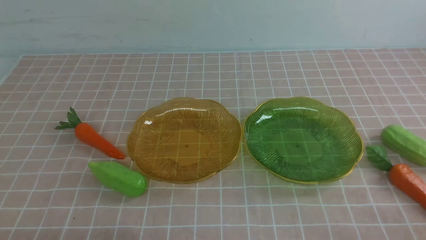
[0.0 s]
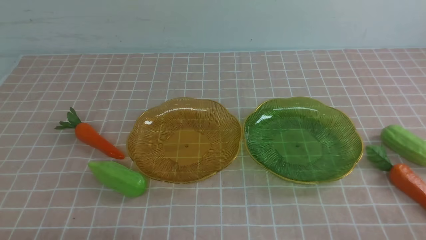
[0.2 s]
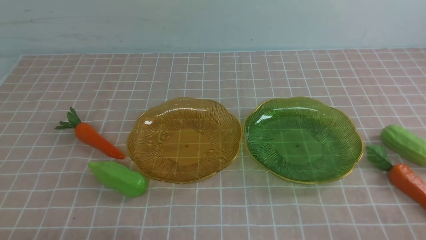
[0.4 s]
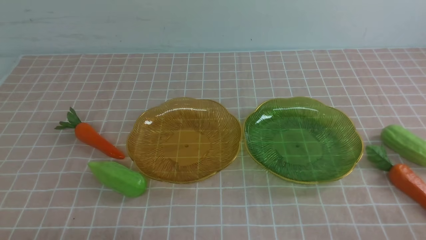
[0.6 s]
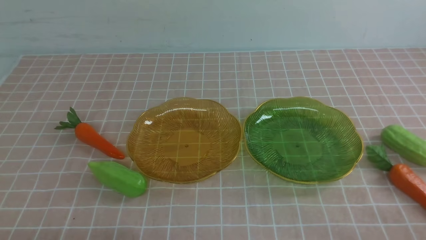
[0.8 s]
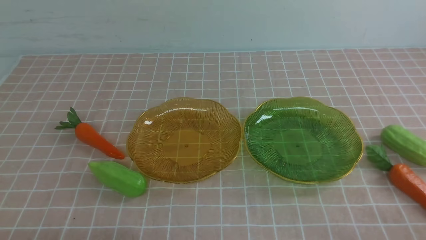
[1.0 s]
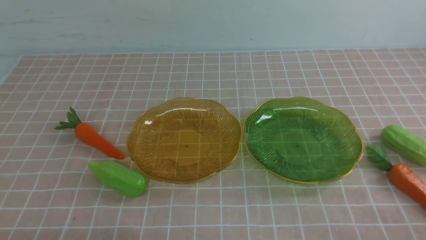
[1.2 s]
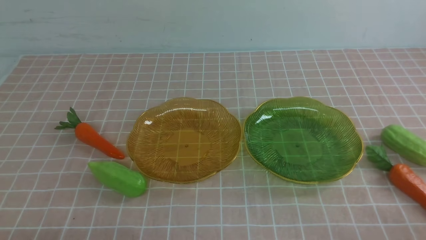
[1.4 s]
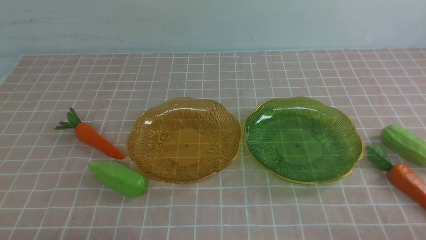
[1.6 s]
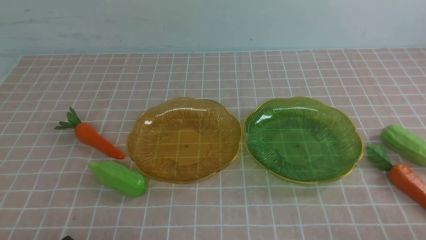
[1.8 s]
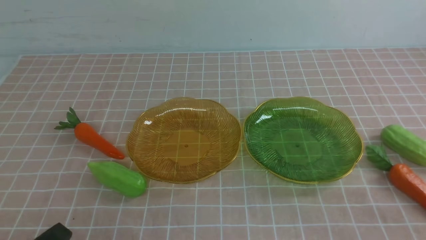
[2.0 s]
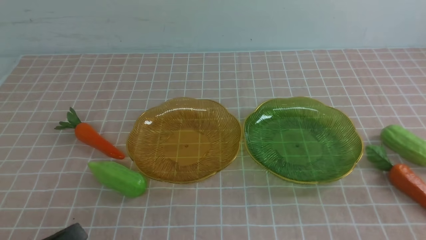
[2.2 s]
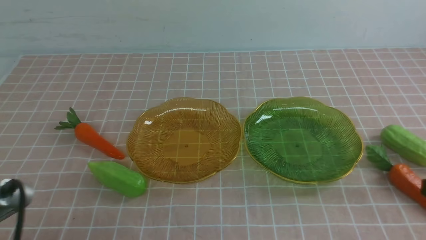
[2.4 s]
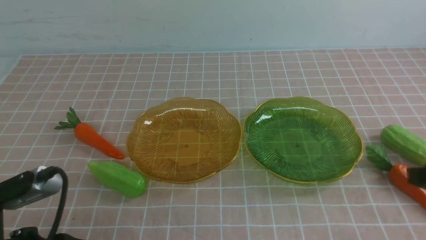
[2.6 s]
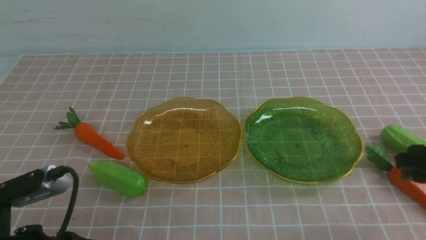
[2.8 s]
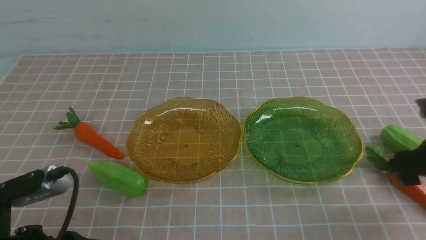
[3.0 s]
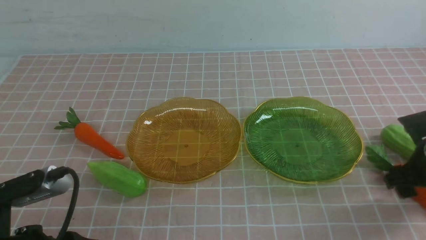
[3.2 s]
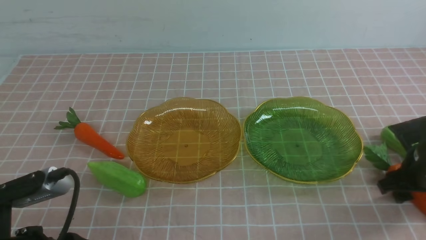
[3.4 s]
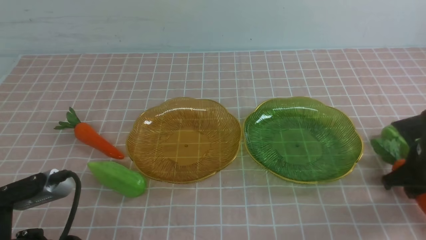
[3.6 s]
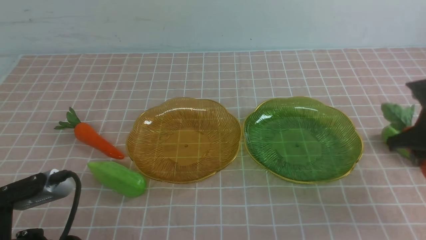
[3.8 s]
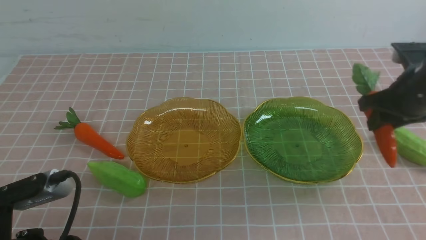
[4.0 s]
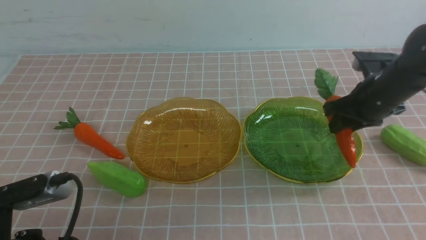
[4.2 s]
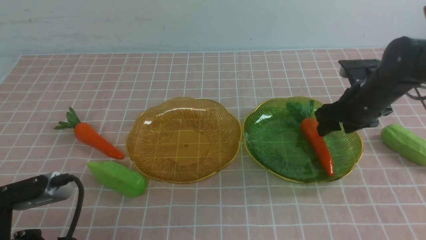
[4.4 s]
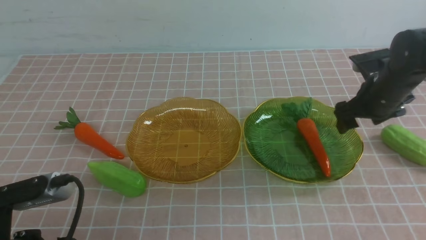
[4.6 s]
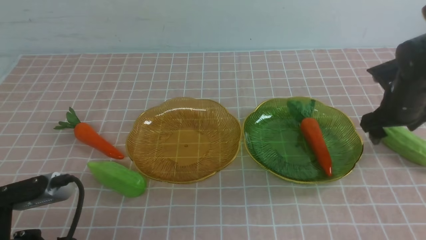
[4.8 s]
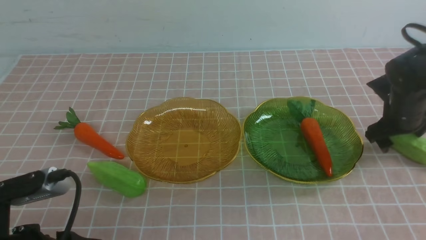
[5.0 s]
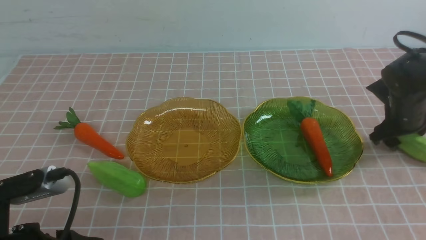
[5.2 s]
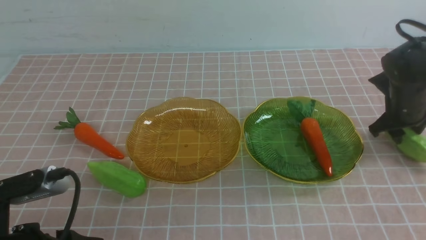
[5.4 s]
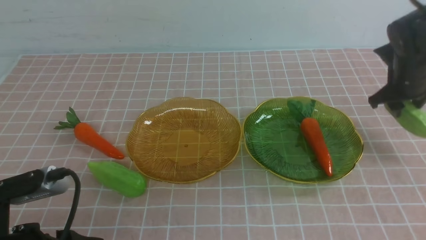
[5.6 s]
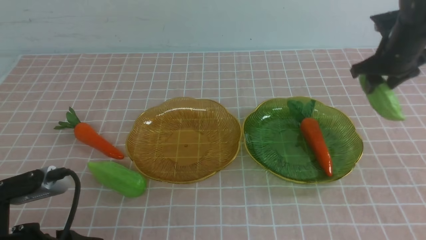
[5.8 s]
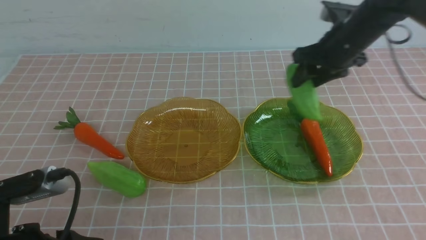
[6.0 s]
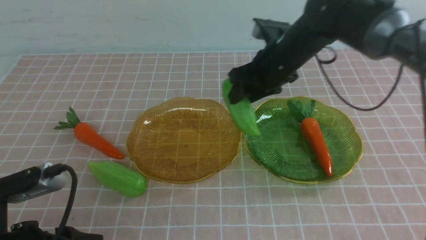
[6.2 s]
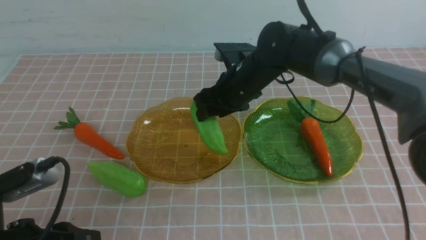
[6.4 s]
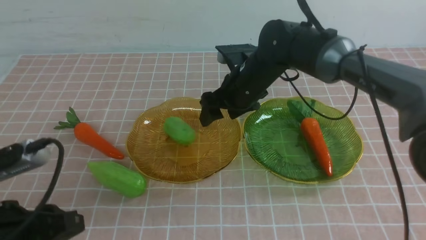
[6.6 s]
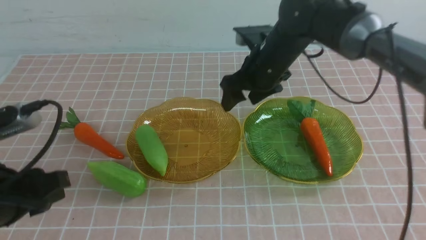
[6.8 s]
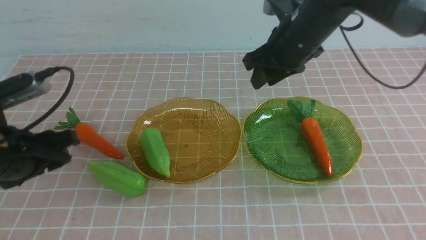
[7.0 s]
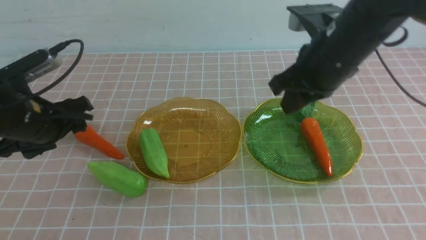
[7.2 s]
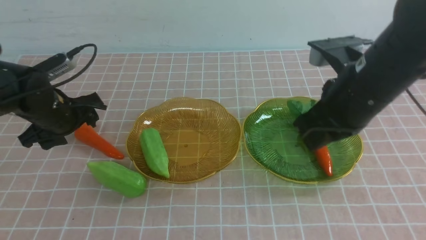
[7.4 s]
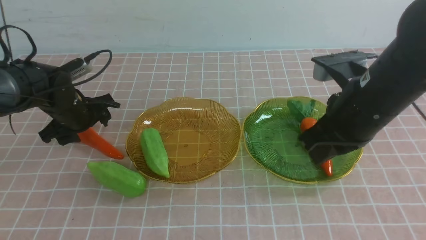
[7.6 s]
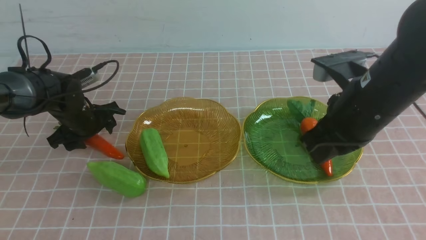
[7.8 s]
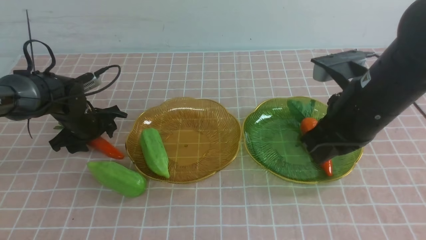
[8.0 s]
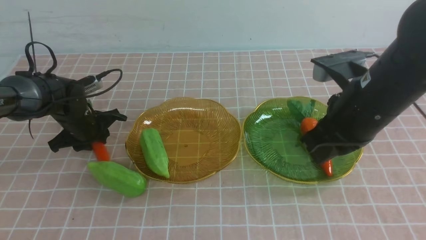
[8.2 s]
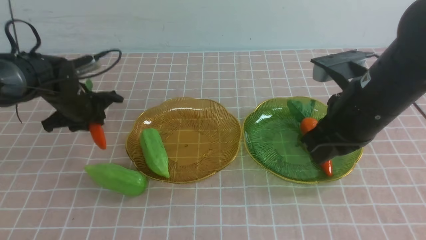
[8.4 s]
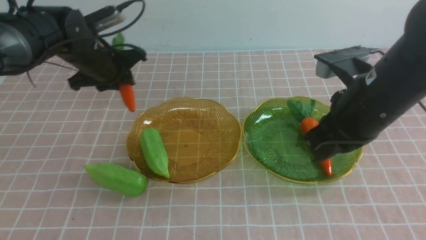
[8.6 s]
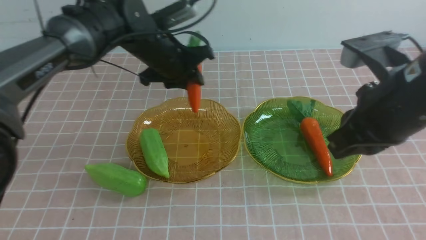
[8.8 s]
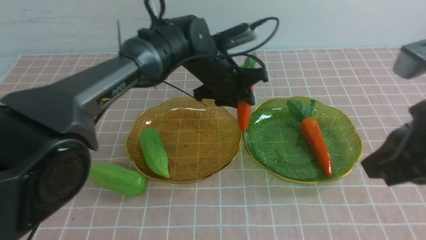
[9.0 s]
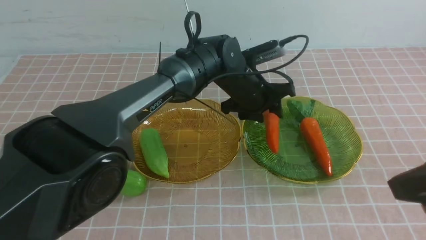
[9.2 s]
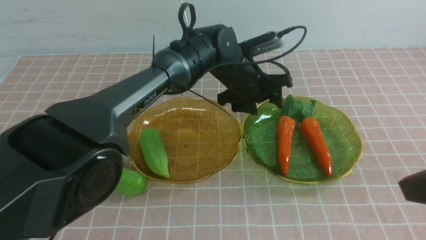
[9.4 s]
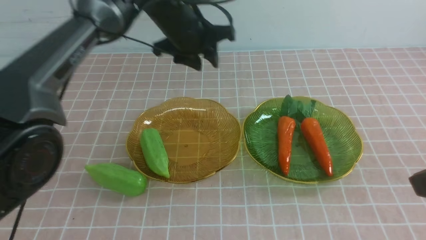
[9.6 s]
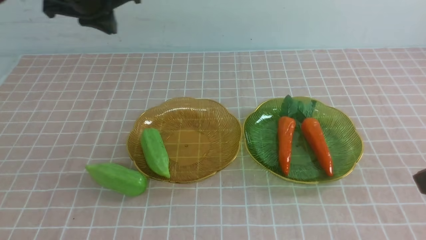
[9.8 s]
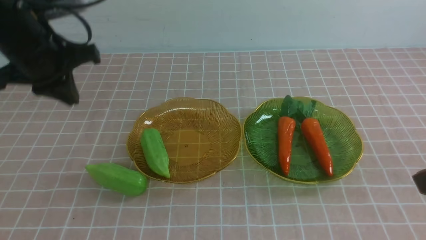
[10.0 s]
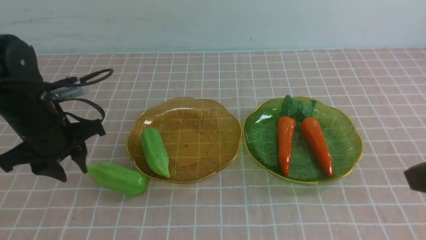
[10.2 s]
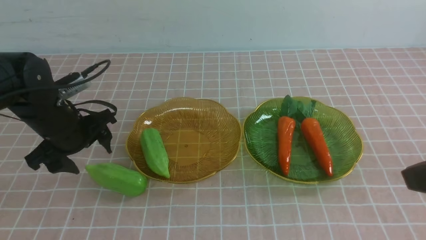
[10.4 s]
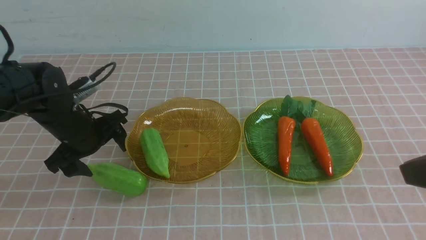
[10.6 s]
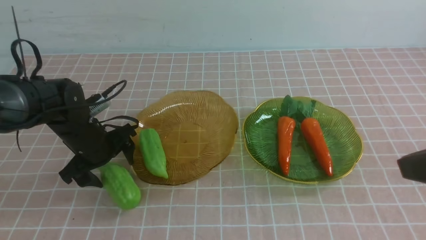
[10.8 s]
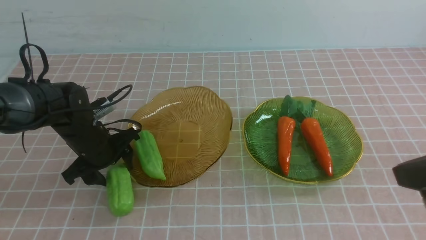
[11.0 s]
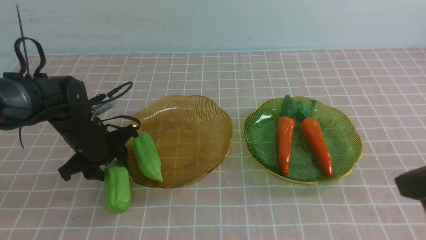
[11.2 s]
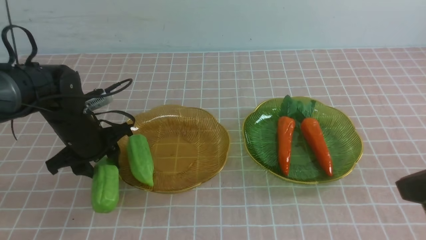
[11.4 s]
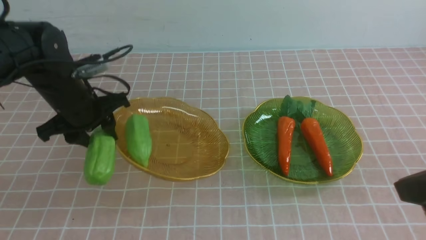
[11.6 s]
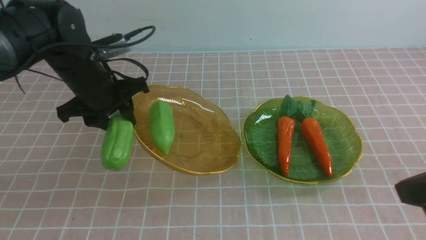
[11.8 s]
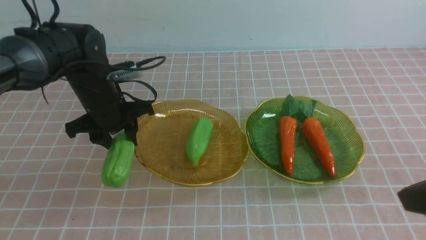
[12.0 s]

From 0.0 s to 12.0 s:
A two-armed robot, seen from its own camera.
Step, from 0.0 s to 4.4 s: use the right arm to grab a carrot and put it into the right plate.
Step, from 4.6 s to 6.6 s: Grab the chayote with your right arm and put it on the left plate.
Step, from 6.8 s to 9.2 s: use the left arm to grab a carrot and put it into the right plate.
From 1.6 s to 3.0 s: The left gripper moves upward and forward, approximately 10 cm, and opens. The right gripper shifts some 25 cm forward, and opens its fingers.
From 3.0 s to 4.4 s: The right gripper shifts about 10 cm forward, and closes, then reopens.
From 4.4 s to 6.0 s: The left gripper heads forward, covering roughly 5 cm. Meanwhile the right gripper heads to the left and upward, covering approximately 25 cm.
From 6.0 s to 7.6 s: The left gripper heads forward, covering approximately 25 cm, and opens and closes again. The right gripper moves backward and to the right, approximately 15 cm, and closes its fingers.
From 7.6 s to 9.0 s: The right gripper travels backward, to the right and upward by approximately 15 cm. Meanwhile the left gripper goes some 15 cm upward, and goes to the right and returns, roughly 25 cm each way.
From 9.0 s to 10.4 s: The left gripper moves downward, approximately 15 cm, and opens its fingers.
From 10.4 s to 12.0 s: The left gripper shifts by about 5 cm.

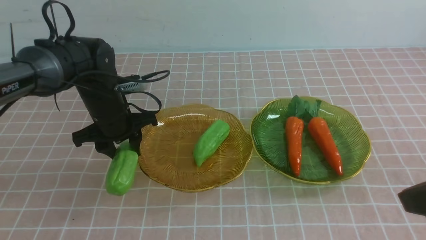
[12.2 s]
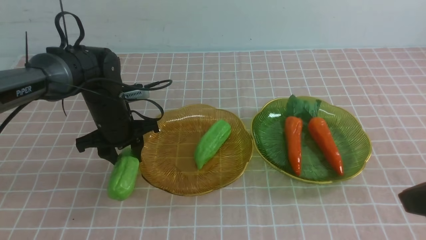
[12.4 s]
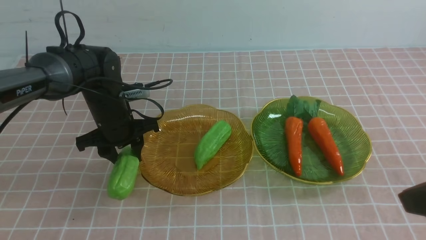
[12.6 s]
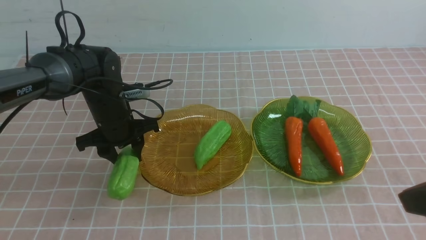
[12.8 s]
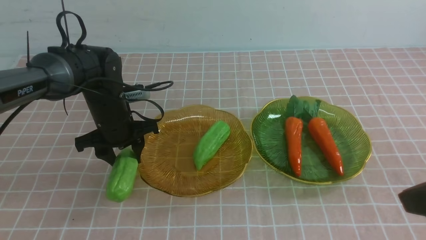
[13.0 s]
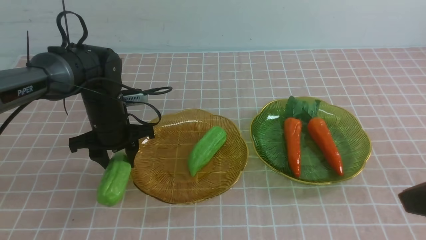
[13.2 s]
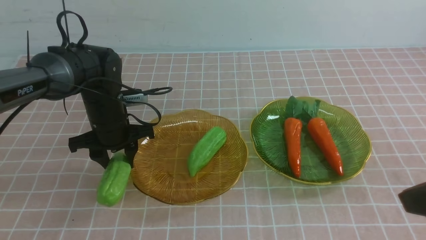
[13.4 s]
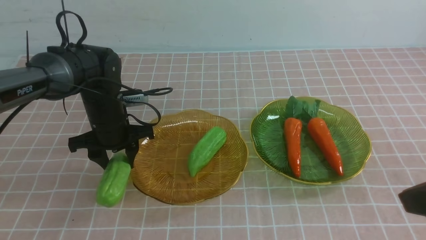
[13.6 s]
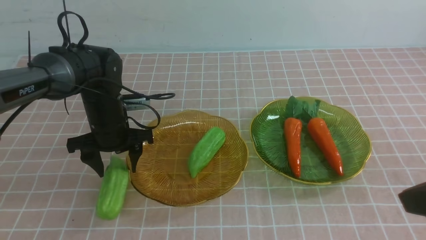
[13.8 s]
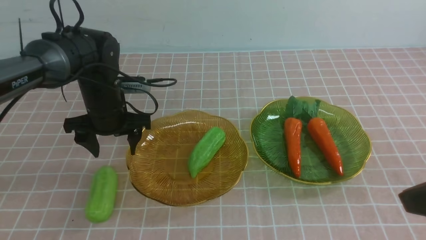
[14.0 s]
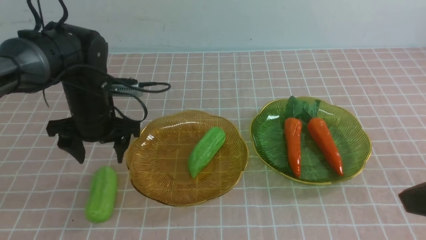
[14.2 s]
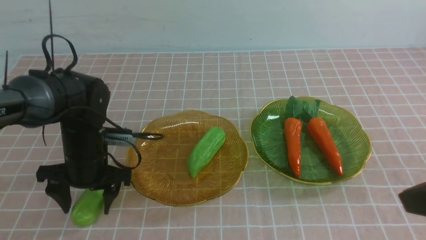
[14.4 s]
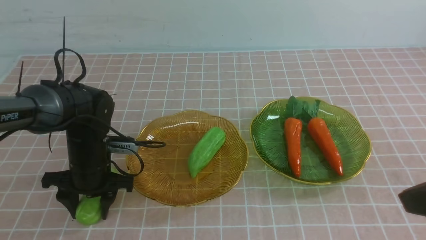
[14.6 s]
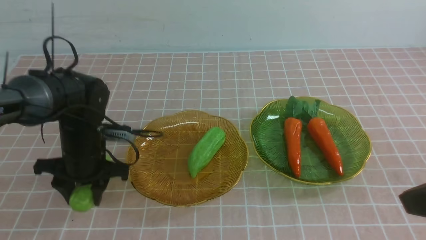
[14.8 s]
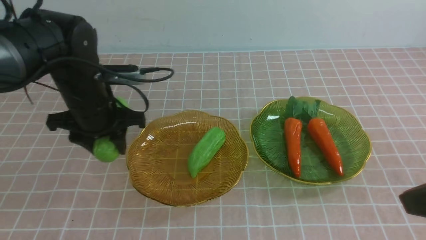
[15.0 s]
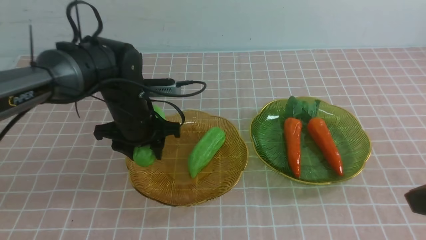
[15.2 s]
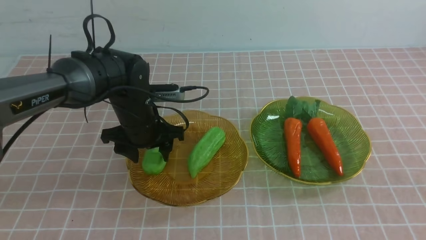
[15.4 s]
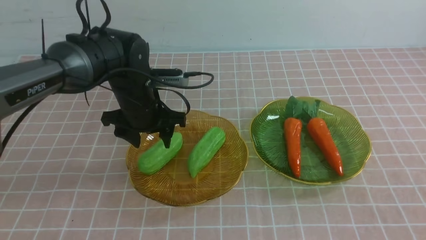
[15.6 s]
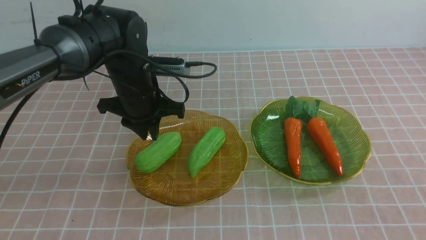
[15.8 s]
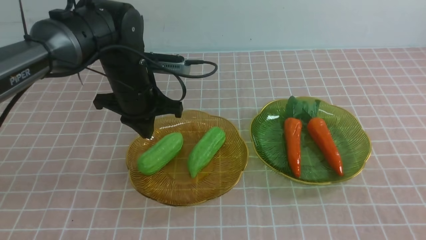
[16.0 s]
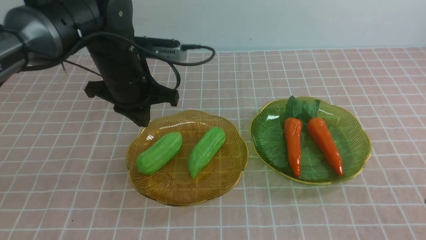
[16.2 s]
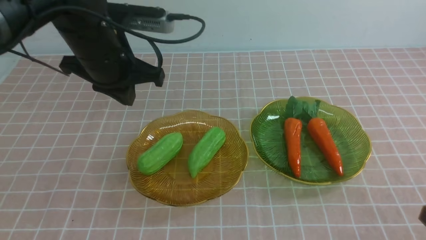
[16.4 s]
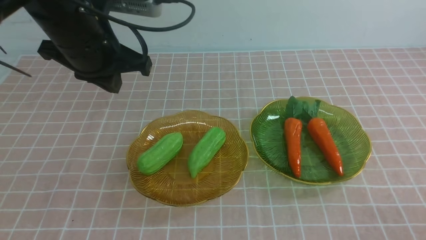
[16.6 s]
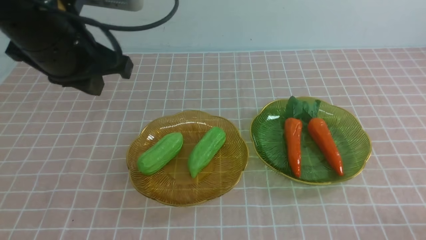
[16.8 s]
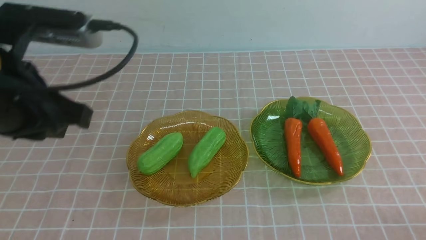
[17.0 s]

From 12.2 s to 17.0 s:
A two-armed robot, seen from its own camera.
Step, from 12.2 s to 15.4 s: use the left arm to grab a chayote and put it into the left plate.
From 12.2 s to 13.8 s: The left gripper travels backward by roughly 5 cm.
From 13.8 s to 15.4 s: The right gripper heads downward and backward, covering roughly 10 cm. The left gripper travels upward and to the right by roughly 15 cm, and closes.
From 15.4 s to 17.0 s: The right gripper travels downward by some 10 cm, while the left gripper moves backward, roughly 30 cm.
